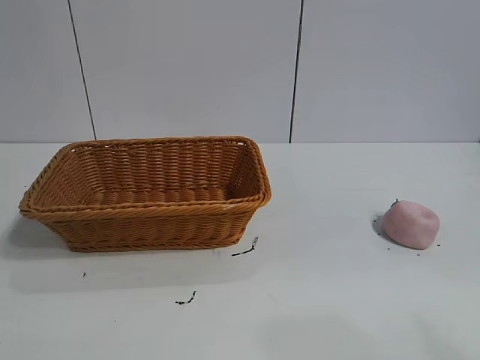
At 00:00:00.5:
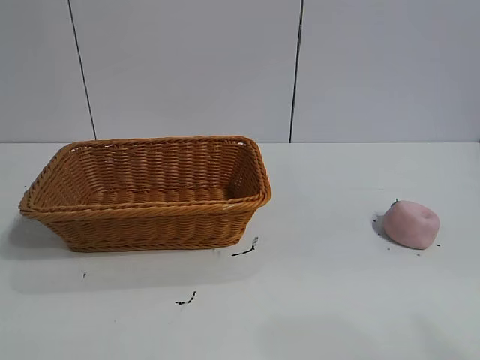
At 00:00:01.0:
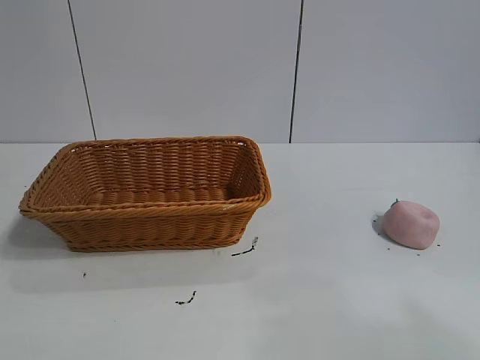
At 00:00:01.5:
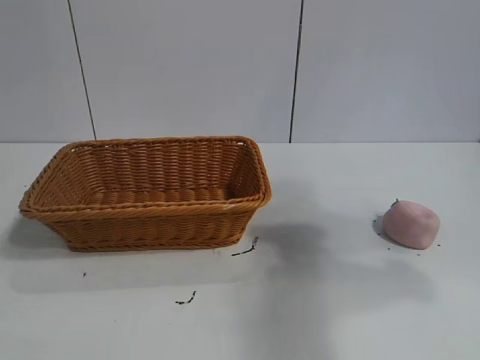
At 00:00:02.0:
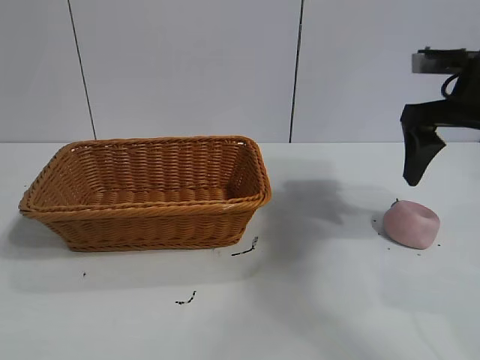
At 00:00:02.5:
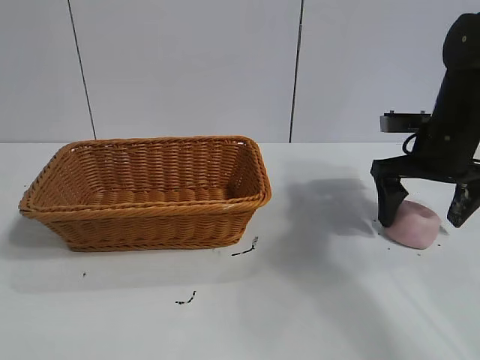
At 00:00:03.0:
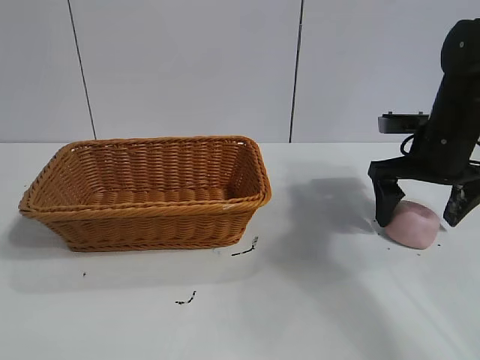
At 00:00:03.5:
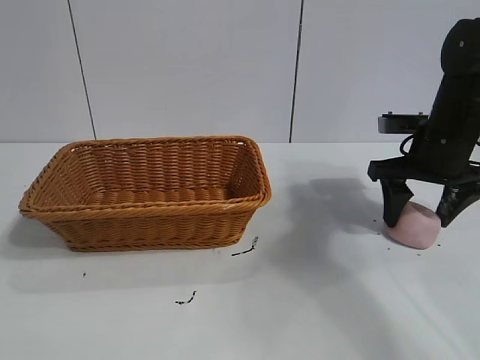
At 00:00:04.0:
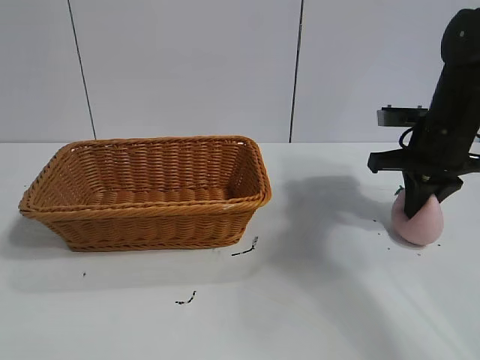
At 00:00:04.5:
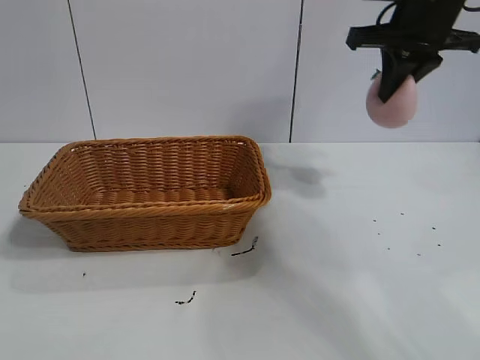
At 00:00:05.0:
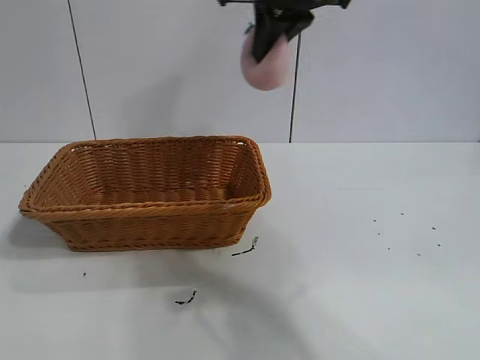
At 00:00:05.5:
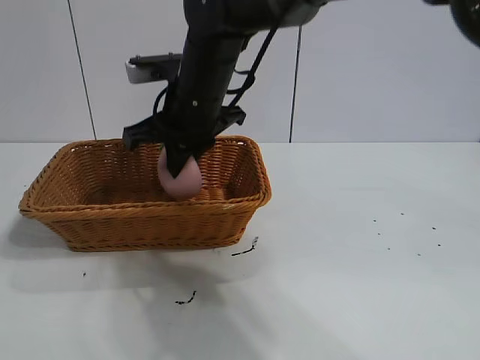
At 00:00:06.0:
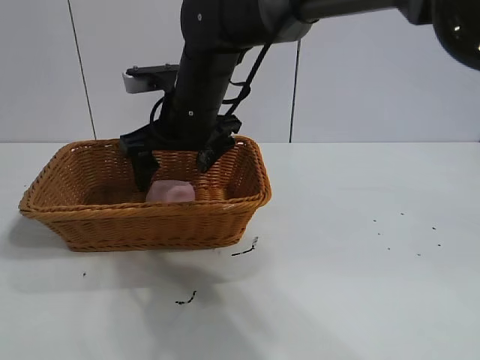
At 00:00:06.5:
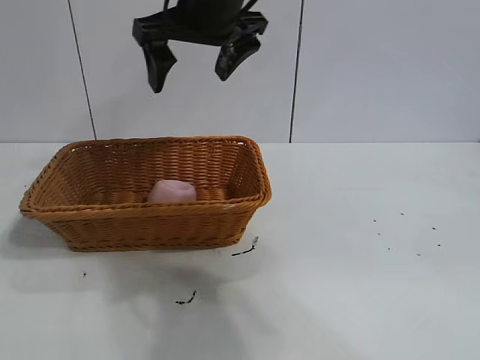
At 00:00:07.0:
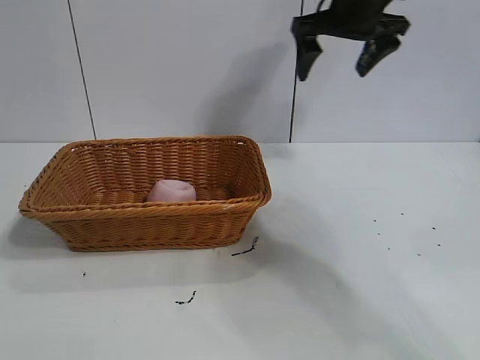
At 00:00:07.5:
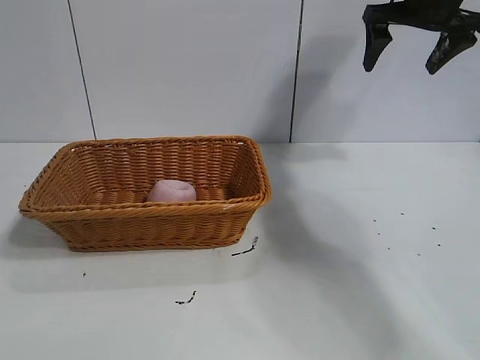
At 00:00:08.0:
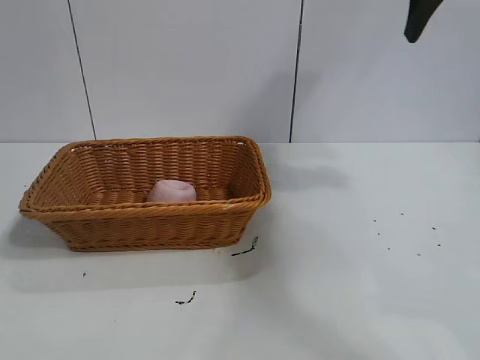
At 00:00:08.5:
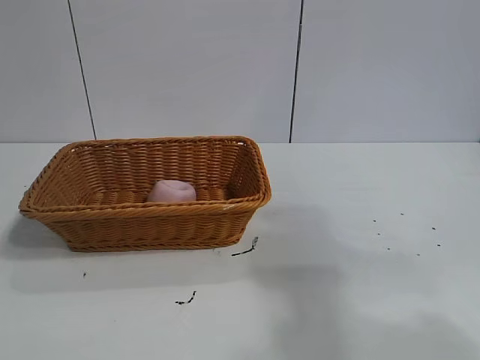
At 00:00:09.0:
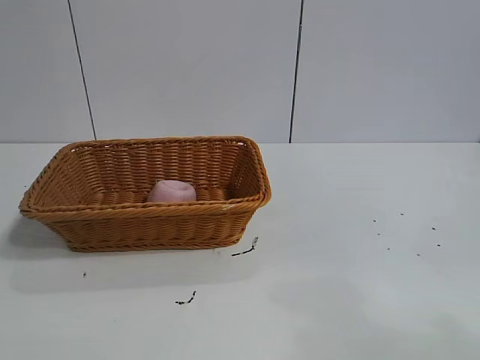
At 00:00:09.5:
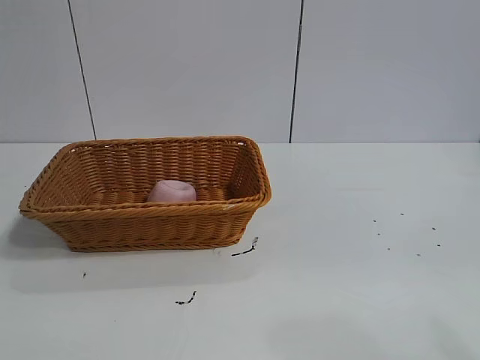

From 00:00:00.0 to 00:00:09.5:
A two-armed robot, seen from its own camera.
Task of the whole recording: pick up the peach and put it into the basket.
Step, from 00:00:01.0 to 00:00:03.5: Grasp the peach with right gripper.
Step, from 00:00:04.0 to 00:00:05.5: Place the peach in the basket with right gripper.
